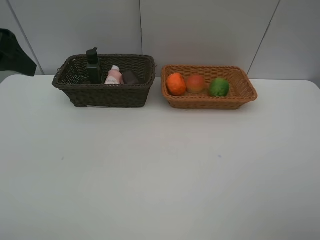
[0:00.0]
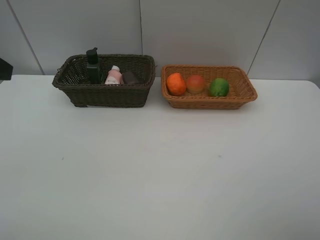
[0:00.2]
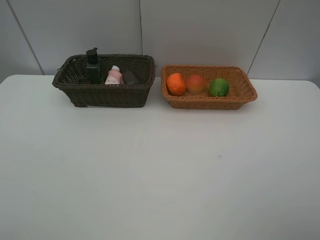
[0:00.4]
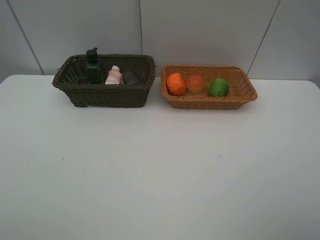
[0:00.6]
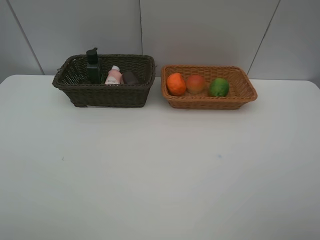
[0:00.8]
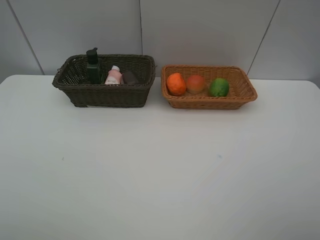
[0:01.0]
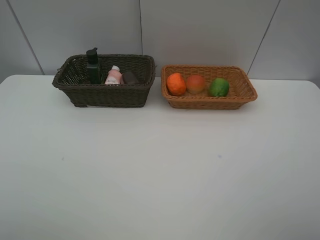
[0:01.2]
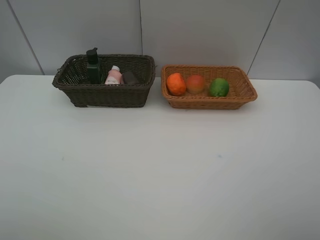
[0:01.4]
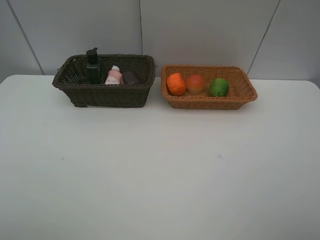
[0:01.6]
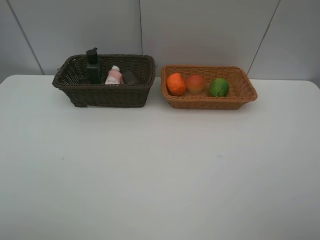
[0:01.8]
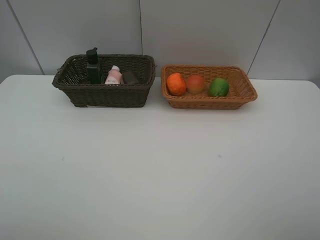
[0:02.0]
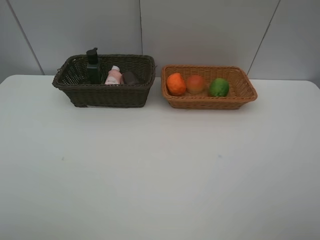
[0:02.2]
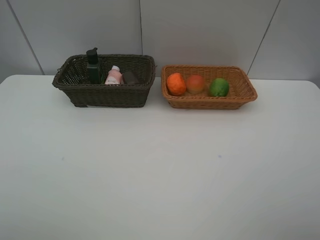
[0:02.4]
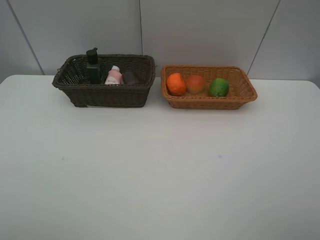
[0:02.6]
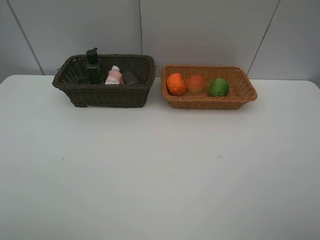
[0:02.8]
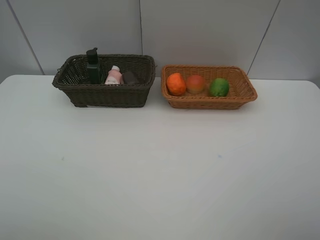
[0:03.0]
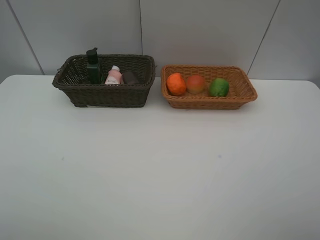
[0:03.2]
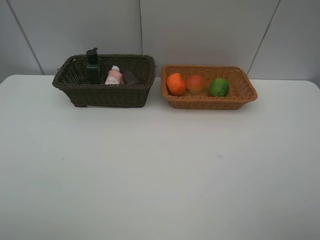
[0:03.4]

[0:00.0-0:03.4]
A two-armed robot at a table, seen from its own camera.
Task of the whole recording: place multiple objects separately in different baskets.
0:00.0 to 0:01.6: The left gripper shifts approximately 20 cm backward.
